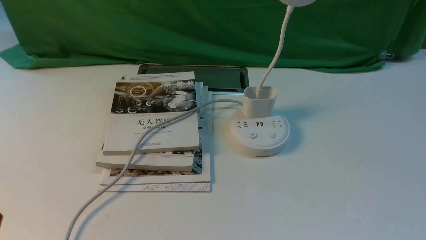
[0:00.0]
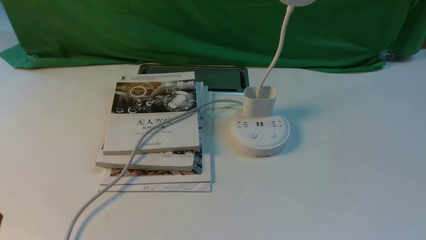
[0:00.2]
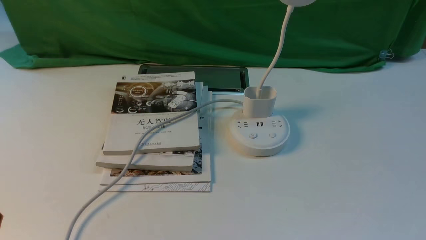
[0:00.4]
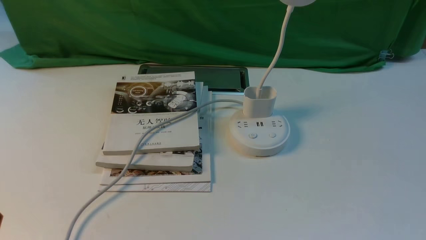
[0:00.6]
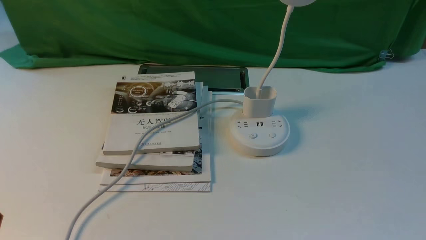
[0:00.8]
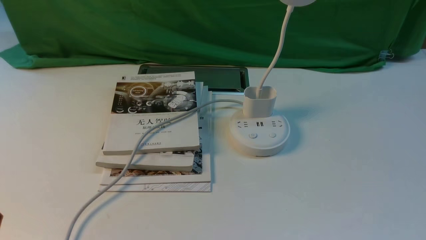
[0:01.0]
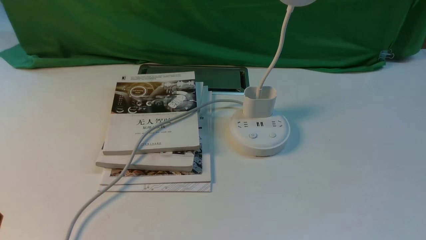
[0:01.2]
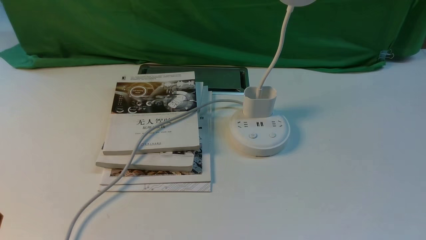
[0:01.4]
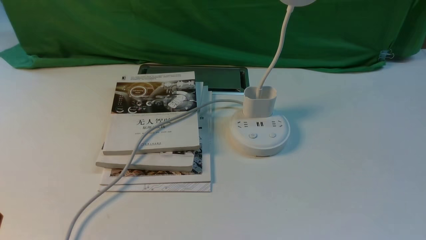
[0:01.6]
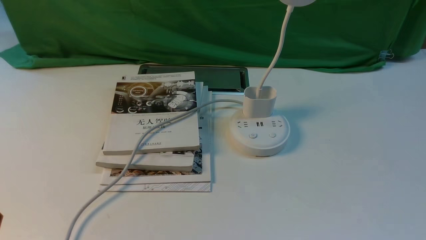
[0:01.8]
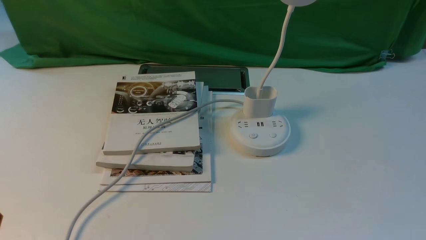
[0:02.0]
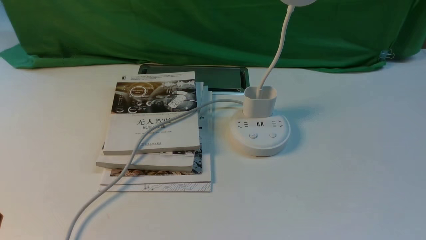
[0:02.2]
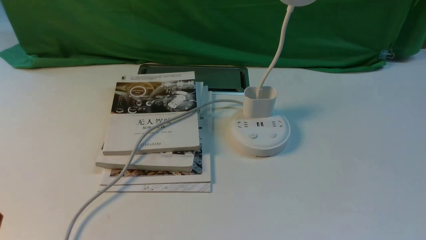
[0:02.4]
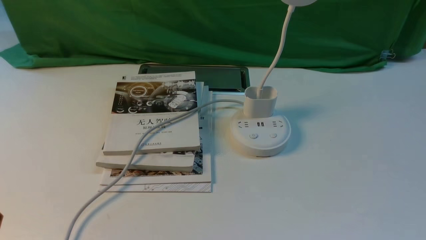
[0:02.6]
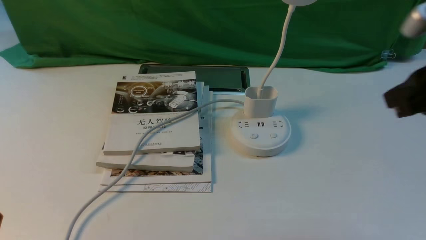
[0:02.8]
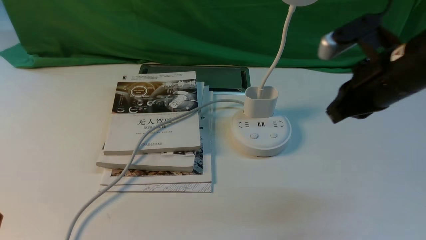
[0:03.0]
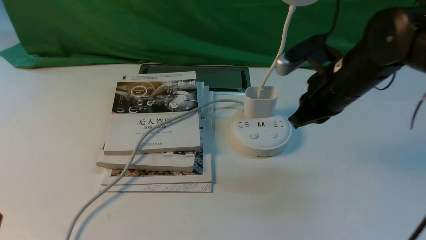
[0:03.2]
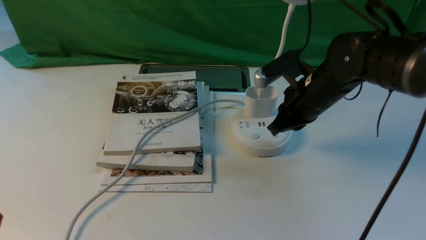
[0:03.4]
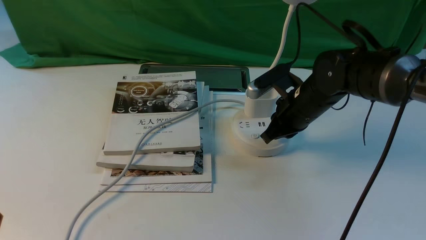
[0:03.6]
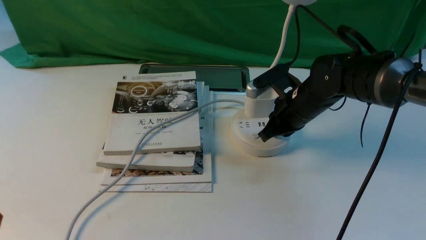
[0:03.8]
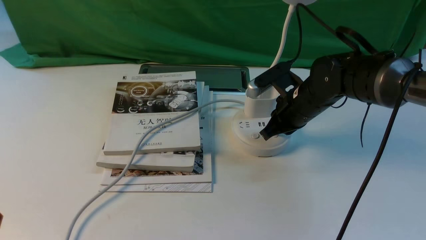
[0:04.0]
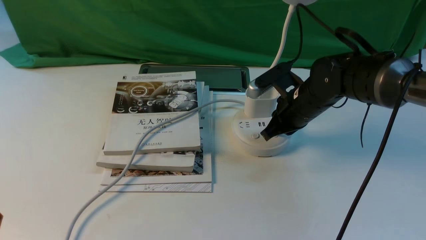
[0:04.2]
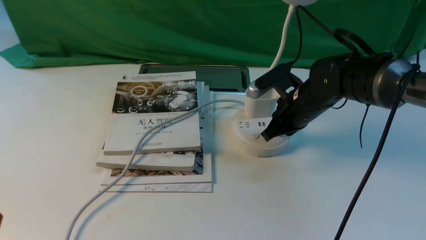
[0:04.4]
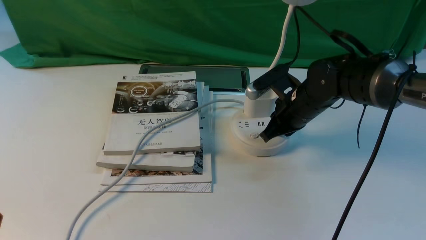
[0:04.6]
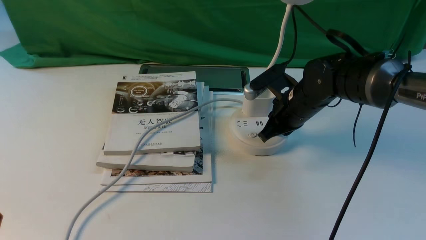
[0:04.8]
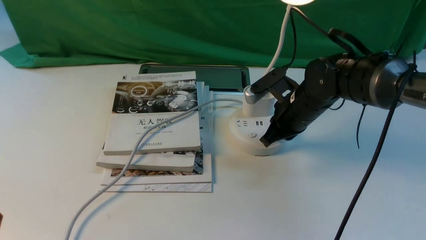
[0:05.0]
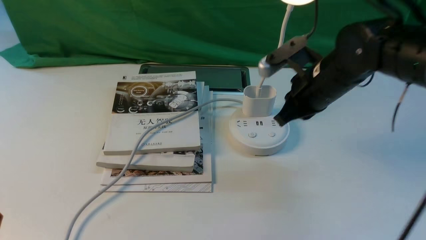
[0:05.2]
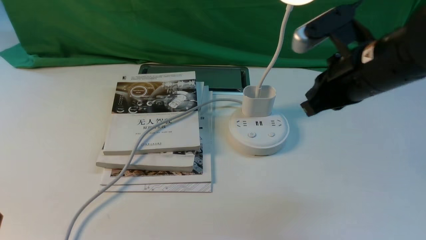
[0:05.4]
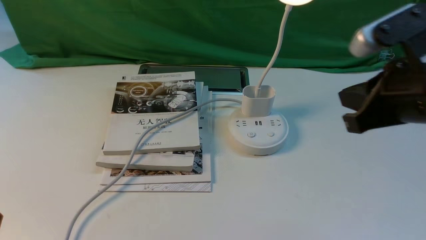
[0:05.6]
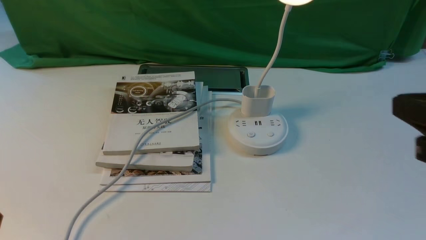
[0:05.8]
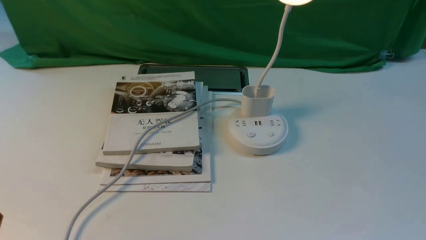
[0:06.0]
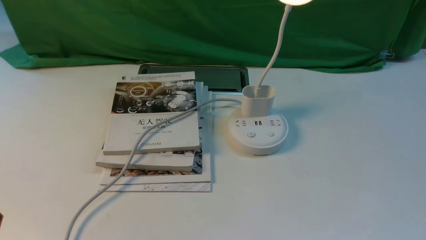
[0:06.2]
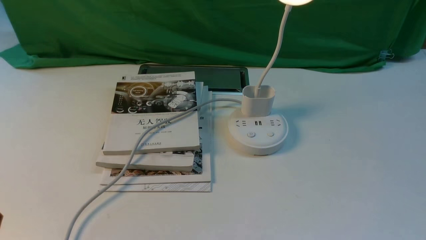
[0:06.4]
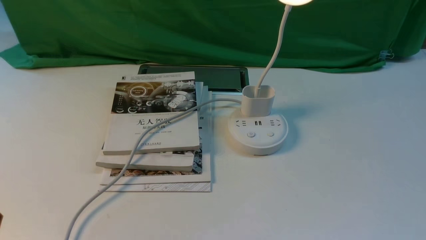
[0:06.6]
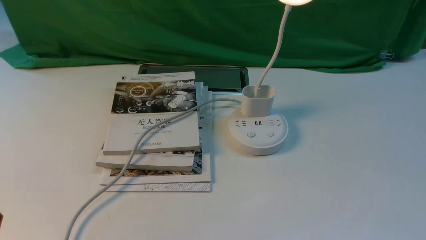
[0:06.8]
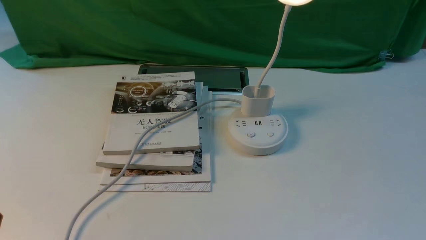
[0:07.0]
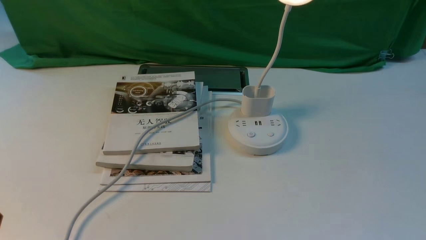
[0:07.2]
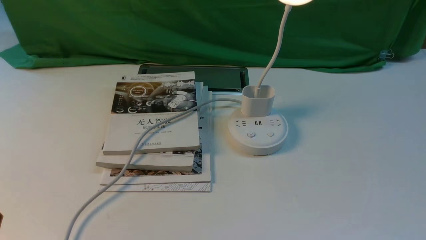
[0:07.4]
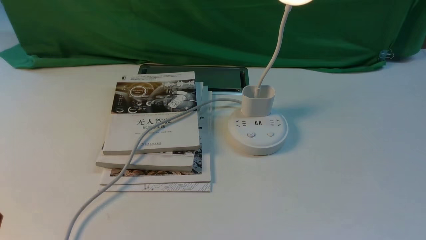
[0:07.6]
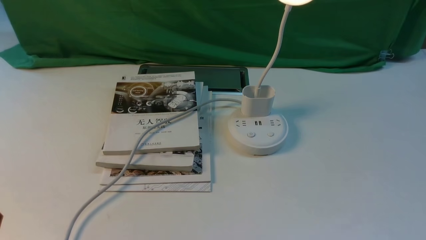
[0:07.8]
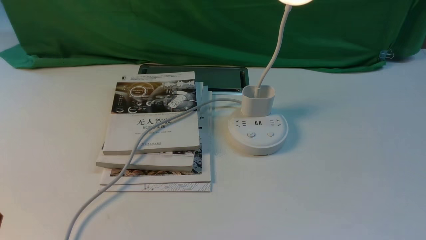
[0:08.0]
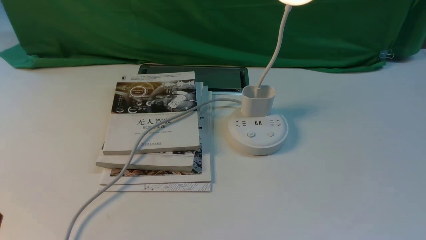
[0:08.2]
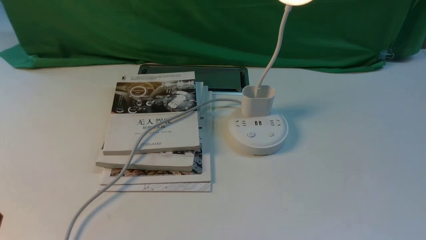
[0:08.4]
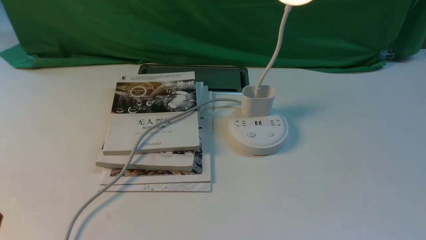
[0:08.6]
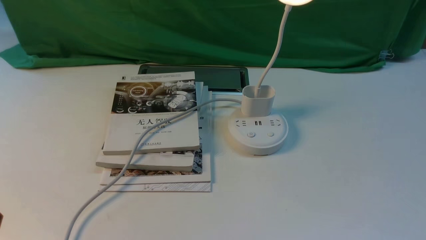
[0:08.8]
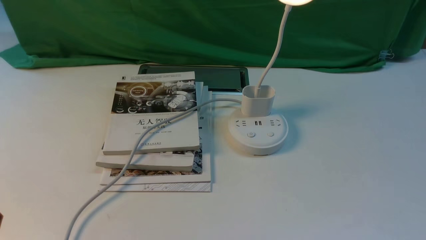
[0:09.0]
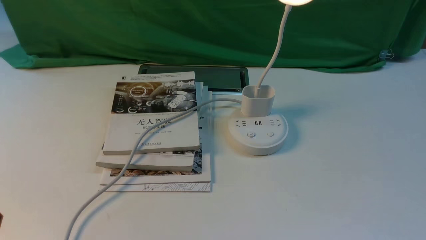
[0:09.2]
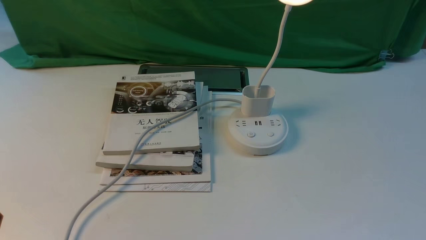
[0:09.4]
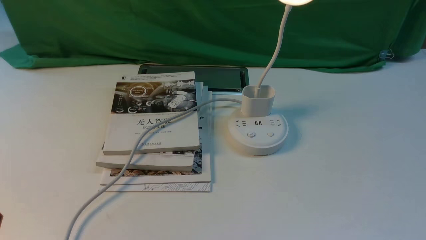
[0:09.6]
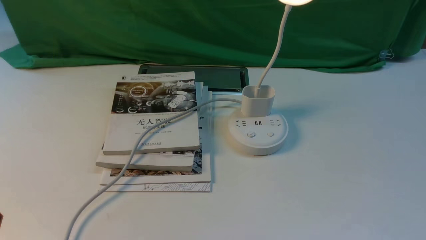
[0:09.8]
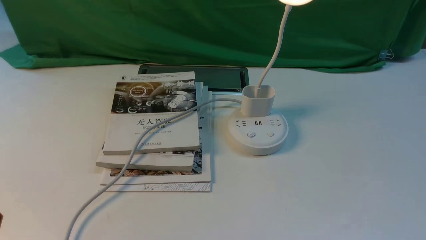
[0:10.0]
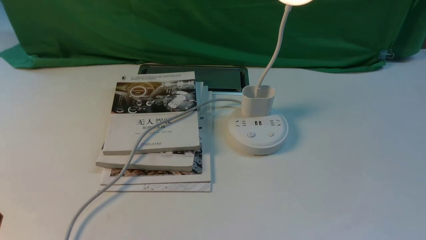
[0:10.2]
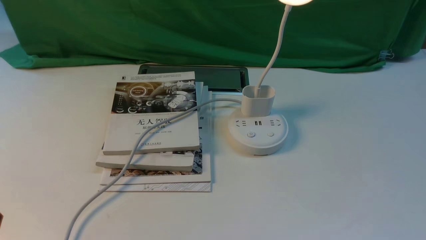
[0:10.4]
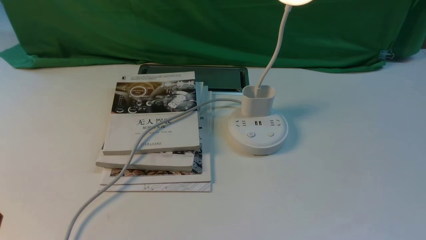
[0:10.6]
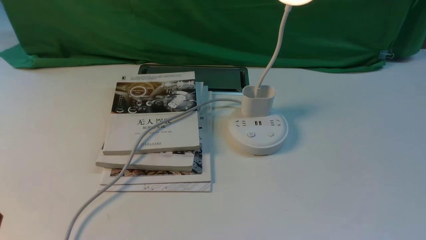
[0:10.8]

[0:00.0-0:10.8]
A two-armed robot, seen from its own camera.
Step, 0:00.0 to 0:05.2: use the right arm to press the button switch on the lamp holder.
0:01.6 to 0:03.0: The right gripper is displaced forward, upward and to the left by some 30 cm, and closes.
0:03.0 to 0:04.6: The right gripper travels downward, forward and to the left by some 15 cm.
0:04.6 to 0:06.2: The right gripper travels backward, to the right and upward by about 40 cm.
0:07.8 to 0:10.8: The two grippers keep their place.

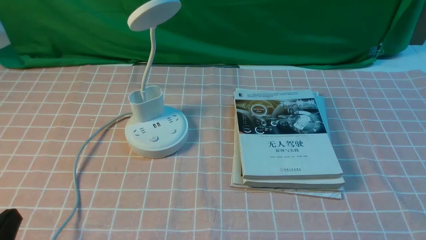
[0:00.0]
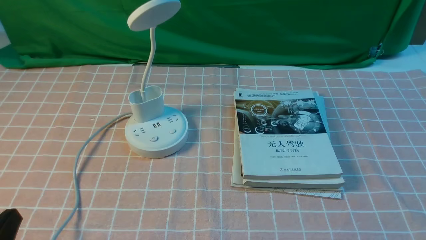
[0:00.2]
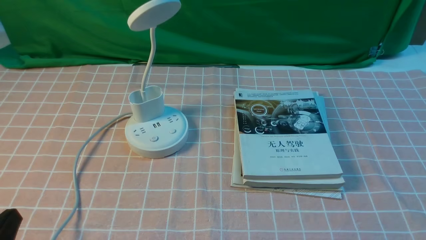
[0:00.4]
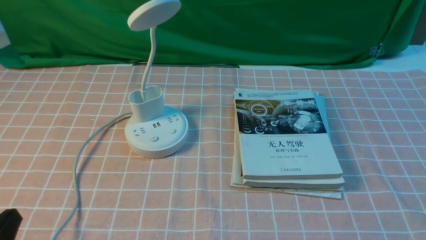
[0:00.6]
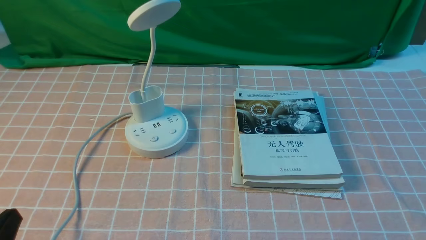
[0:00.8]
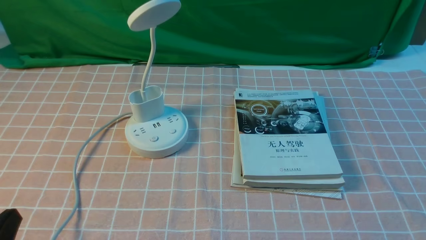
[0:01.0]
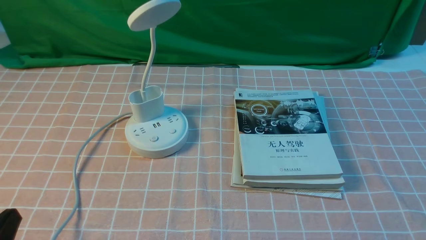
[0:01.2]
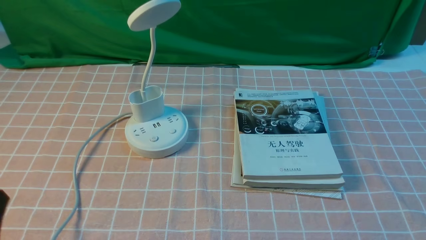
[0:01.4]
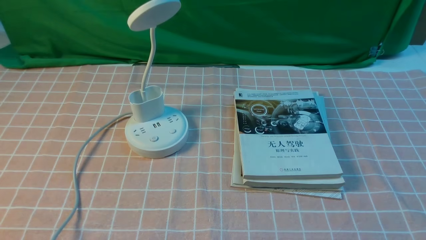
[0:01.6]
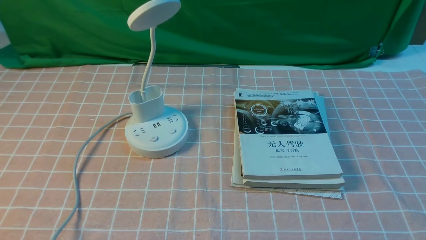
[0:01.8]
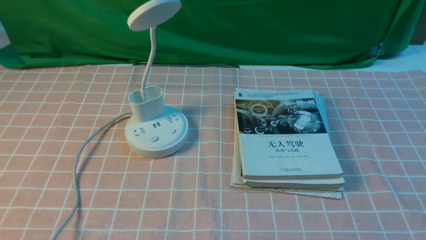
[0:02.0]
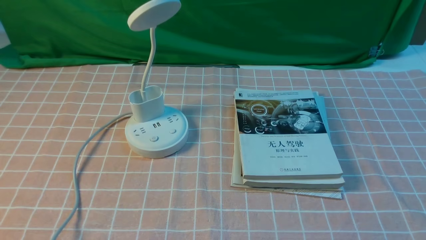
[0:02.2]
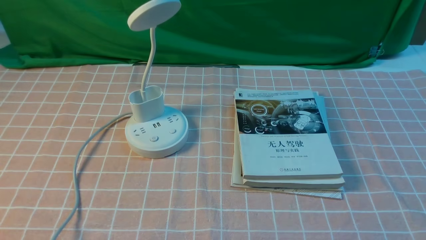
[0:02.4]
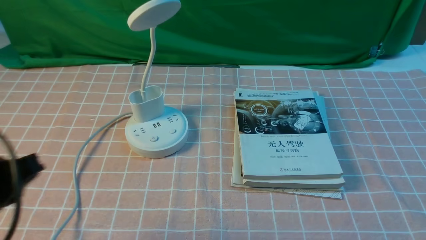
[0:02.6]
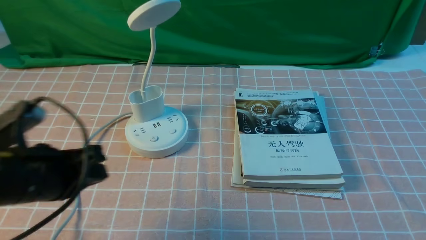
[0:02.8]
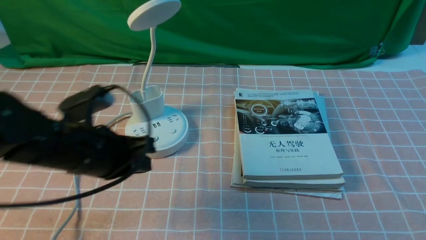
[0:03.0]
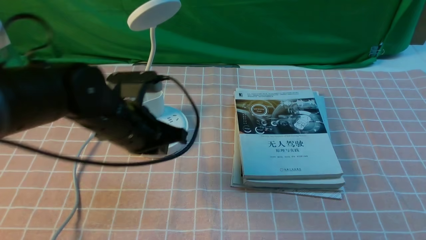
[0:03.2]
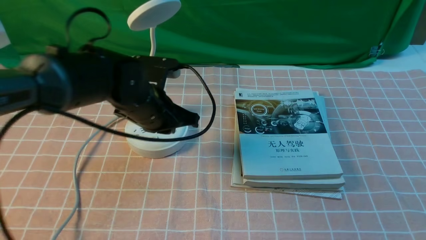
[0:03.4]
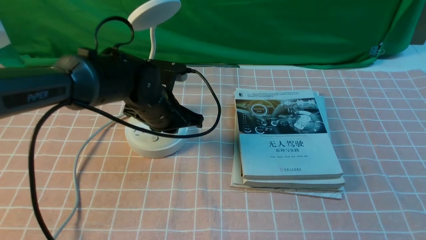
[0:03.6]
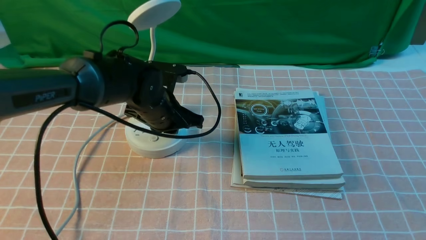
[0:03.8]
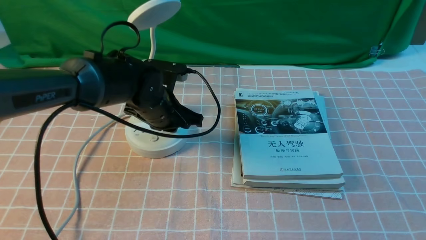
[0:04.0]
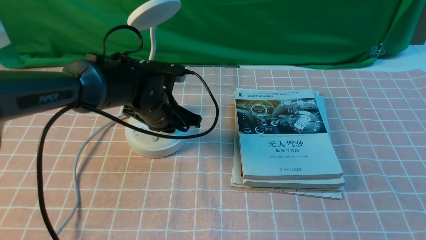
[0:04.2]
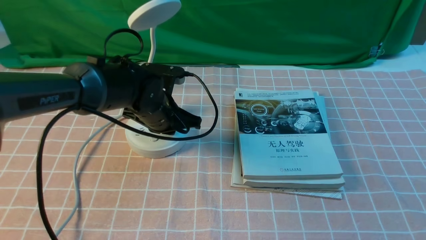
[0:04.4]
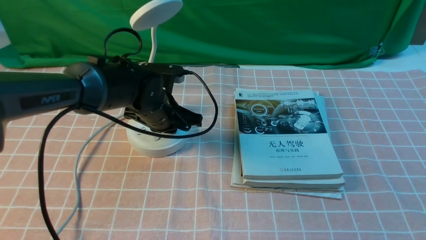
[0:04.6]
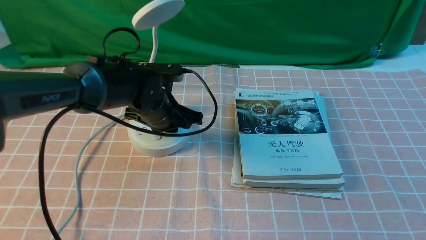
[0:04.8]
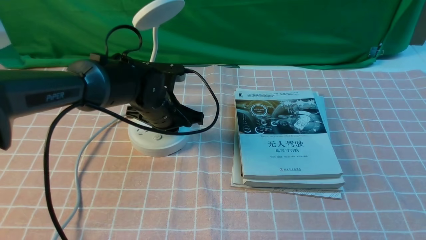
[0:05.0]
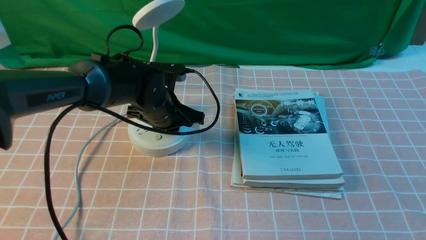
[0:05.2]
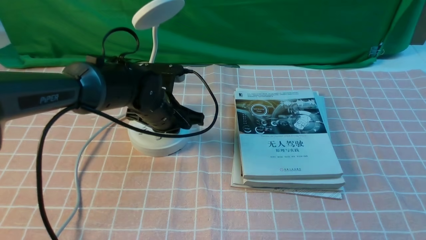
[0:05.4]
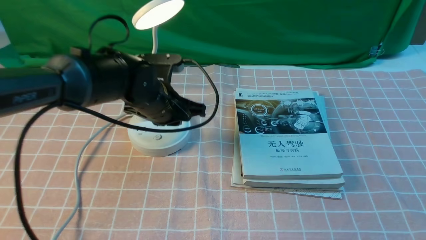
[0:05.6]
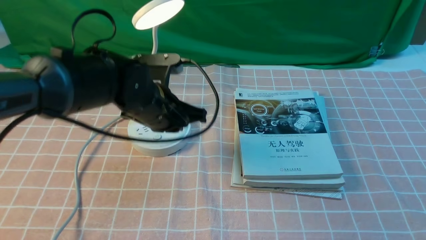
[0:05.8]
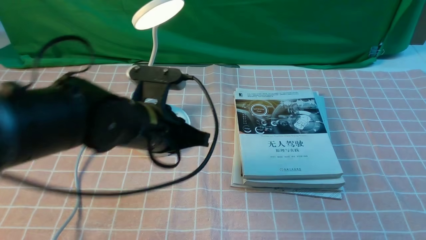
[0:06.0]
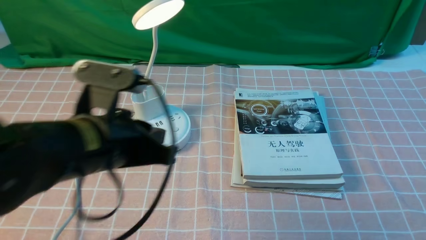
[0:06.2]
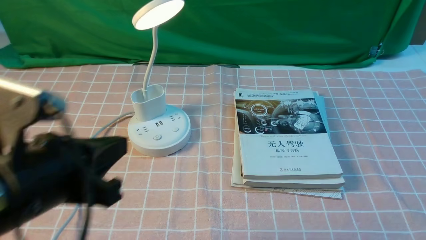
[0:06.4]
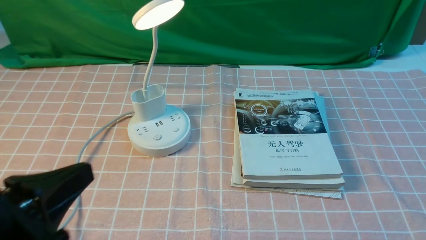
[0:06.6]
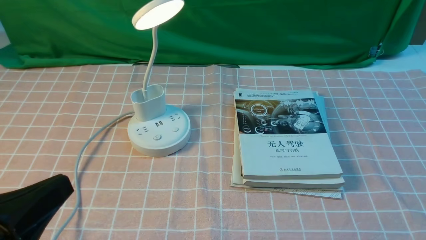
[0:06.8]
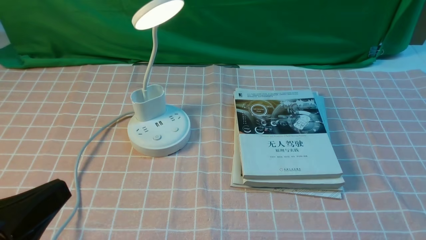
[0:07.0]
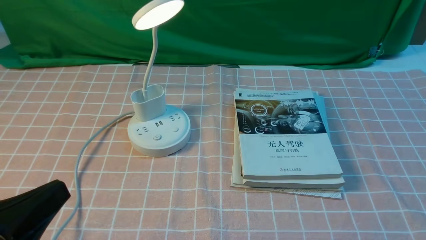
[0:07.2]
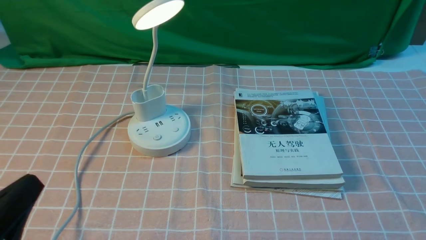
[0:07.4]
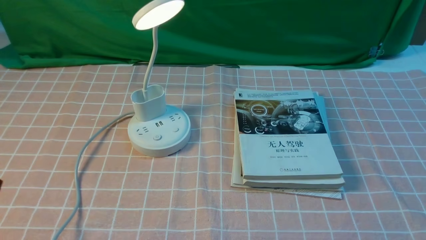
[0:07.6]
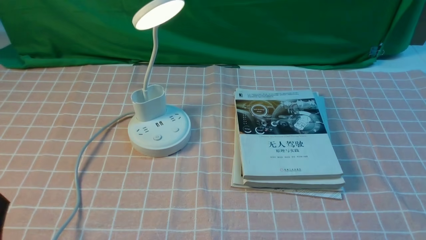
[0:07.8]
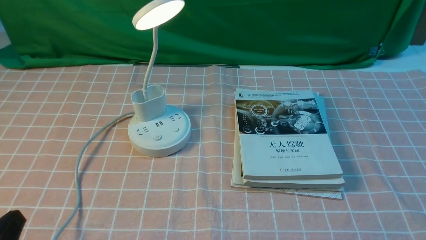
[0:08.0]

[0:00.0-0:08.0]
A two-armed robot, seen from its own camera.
Step, 0:00.0 to 0:05.6: use the left arm to press the button switch on the lamp holder.
0:01.6 to 0:03.2: The left gripper is displaced forward and to the right by roughly 30 cm.
0:03.2 to 0:04.8: The left gripper goes some 10 cm forward and downward. The right gripper opens up.
0:04.8 to 0:06.4: The left gripper heads backward and upward, covering some 30 cm.
0:06.4 to 0:08.0: The left gripper shifts some 15 cm downward, to the left and backward.
